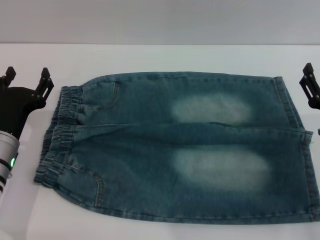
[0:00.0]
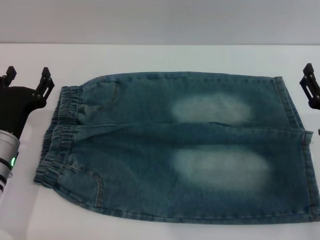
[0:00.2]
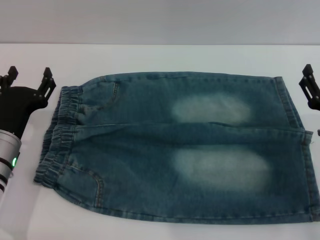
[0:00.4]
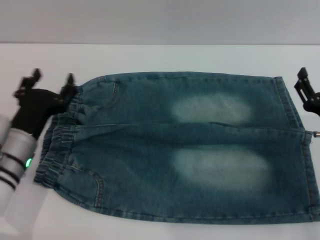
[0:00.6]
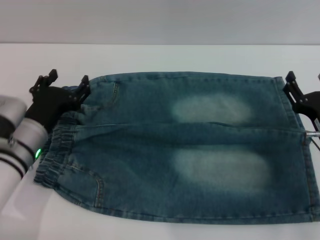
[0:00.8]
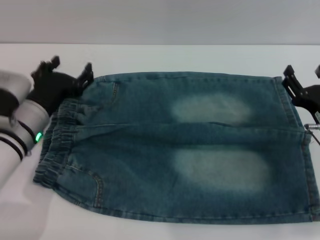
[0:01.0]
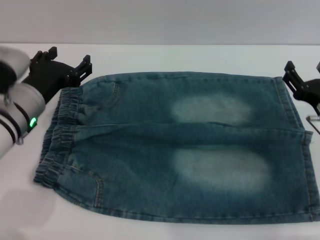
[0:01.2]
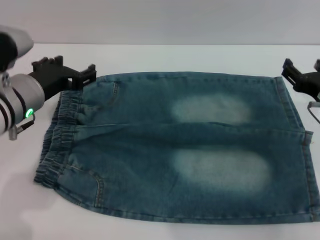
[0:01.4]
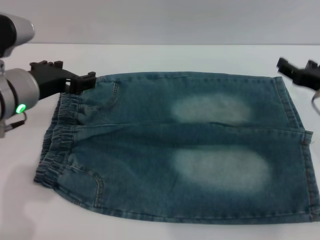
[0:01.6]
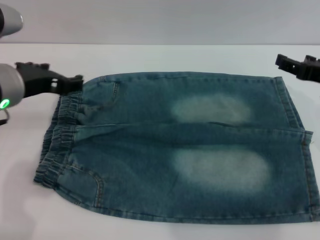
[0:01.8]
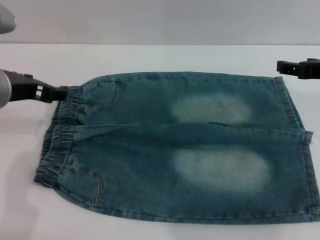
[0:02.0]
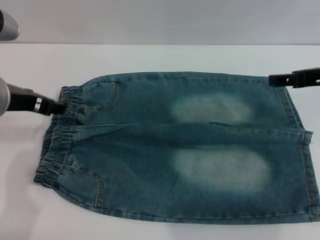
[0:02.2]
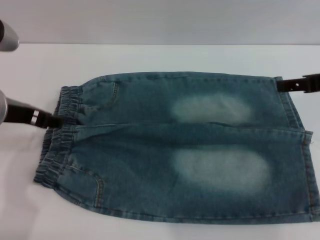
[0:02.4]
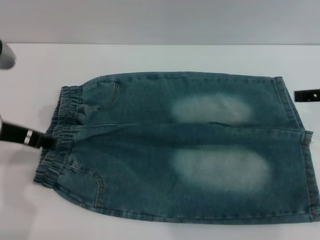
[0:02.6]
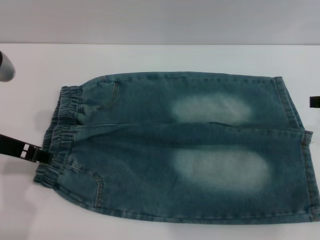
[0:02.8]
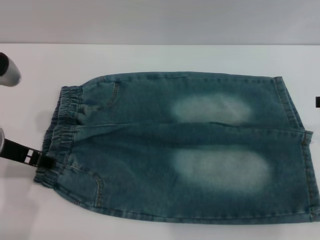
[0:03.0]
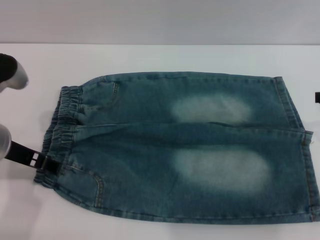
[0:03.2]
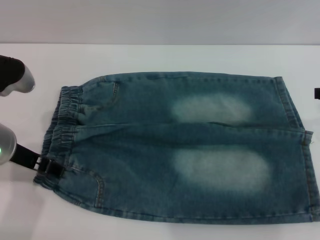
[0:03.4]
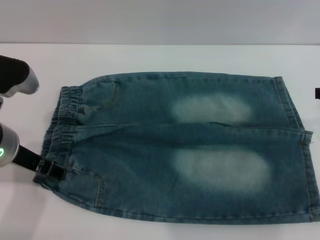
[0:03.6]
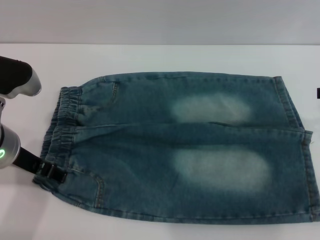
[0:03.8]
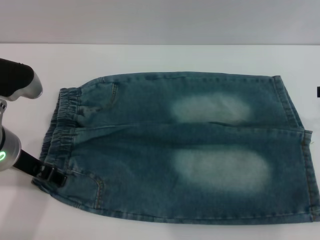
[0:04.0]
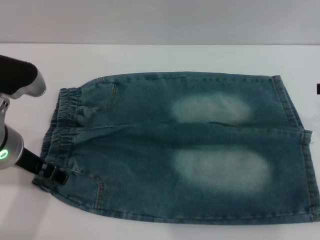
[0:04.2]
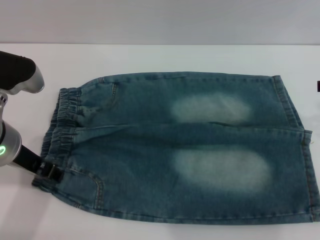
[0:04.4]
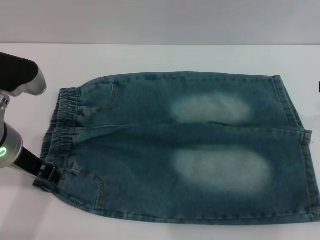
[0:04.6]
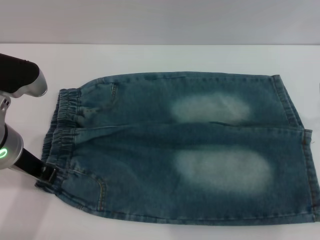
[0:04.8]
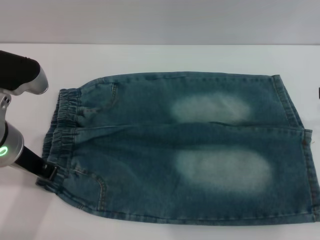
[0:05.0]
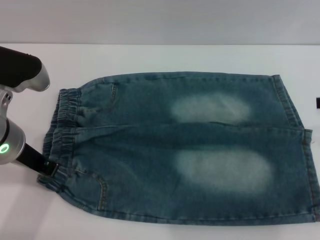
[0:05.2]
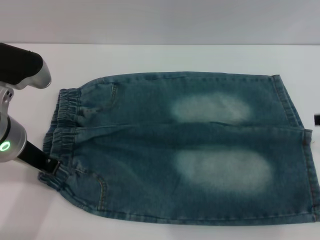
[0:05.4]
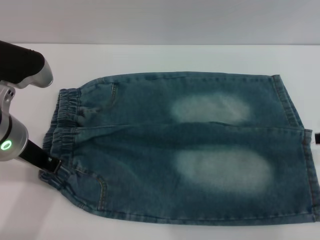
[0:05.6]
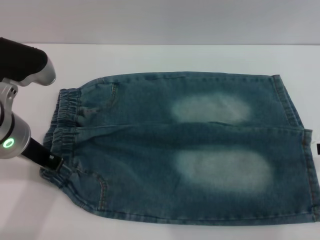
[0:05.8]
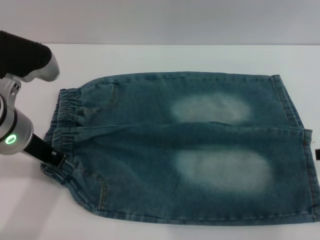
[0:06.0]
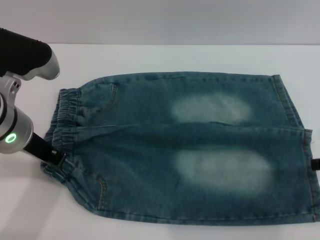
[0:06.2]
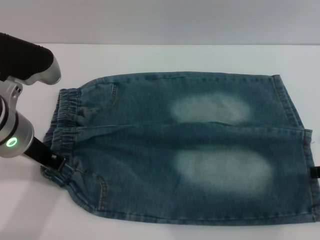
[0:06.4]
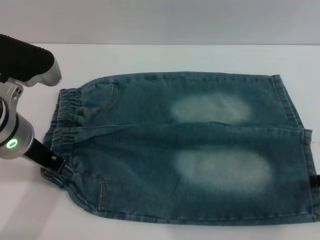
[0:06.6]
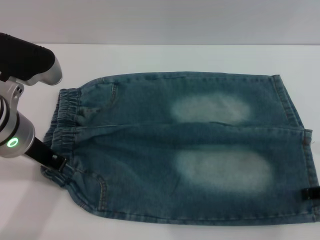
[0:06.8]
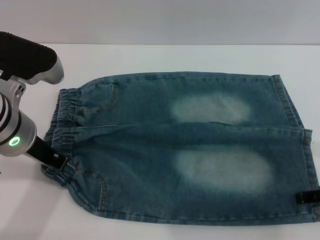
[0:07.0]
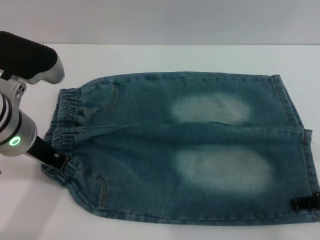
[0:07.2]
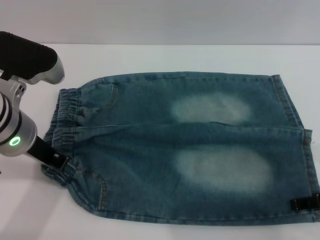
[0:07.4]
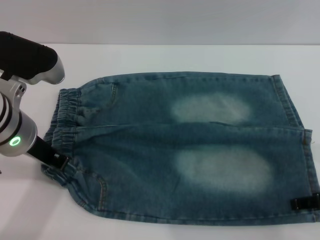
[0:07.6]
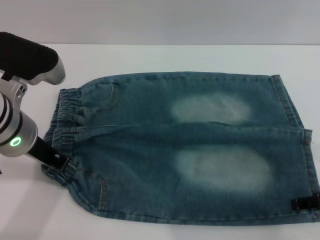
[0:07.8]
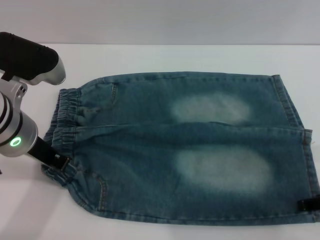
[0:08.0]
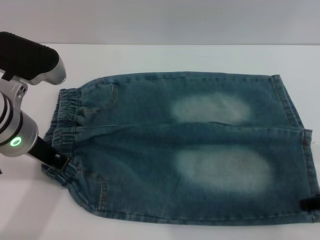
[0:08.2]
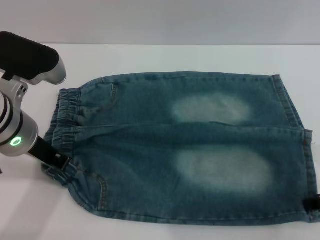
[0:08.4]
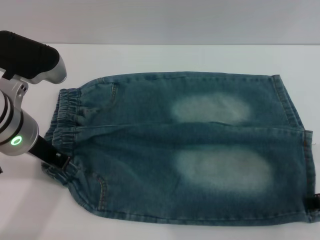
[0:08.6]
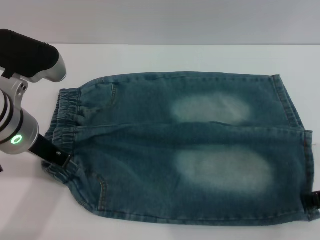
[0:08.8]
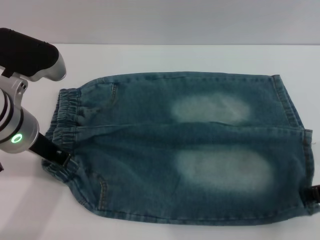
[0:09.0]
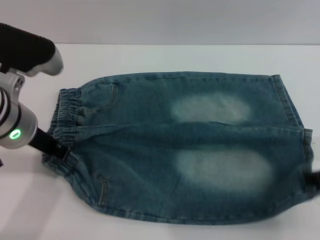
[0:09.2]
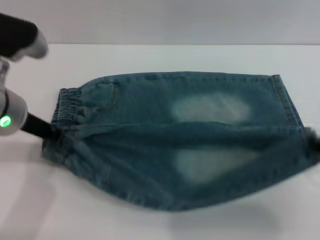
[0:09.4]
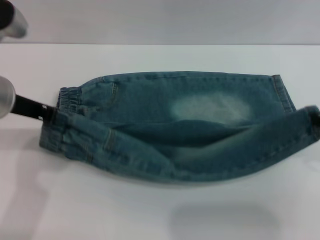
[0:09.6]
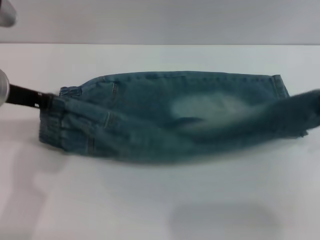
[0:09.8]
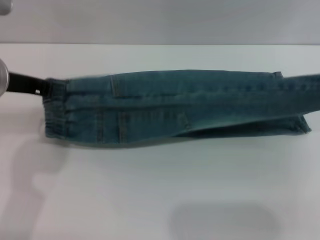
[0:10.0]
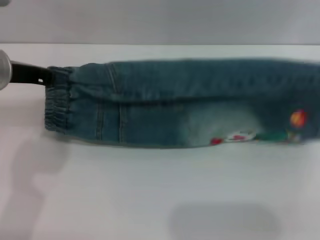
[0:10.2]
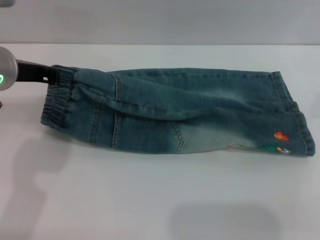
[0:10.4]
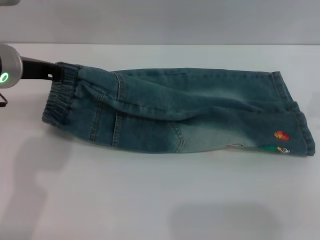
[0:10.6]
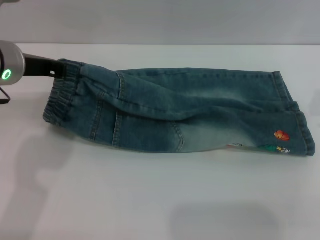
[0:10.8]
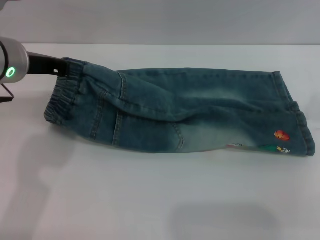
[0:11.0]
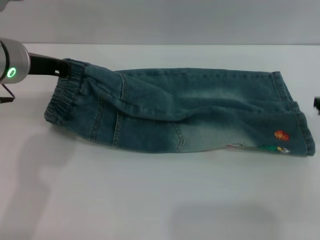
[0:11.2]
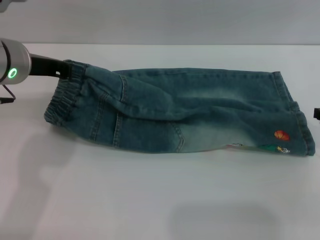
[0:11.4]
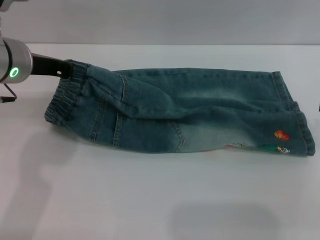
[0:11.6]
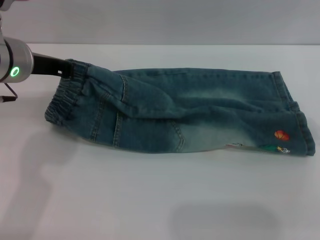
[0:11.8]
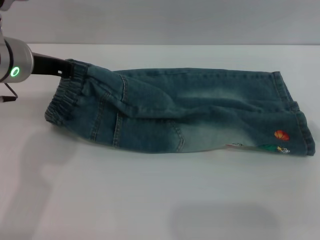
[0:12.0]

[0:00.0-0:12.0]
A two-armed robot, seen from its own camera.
0:00.0 to 0:01.6: Both grippers travel together upward, about 10 cm.
0:01.6 to 0:03.0: The right gripper is displaced upward by approximately 10 cm.
0:03.0 to 0:04.4: There are only small adjustments of the grippers.
0:04.4 to 0:06.0: The left gripper closes up. The right gripper moves approximately 5 cm.
0:07.6 to 0:09.0: The right gripper closes up.
0:09.0 to 0:10.4: The left gripper ends up some 5 cm from where it was. Meanwhile the right gripper shifts about 10 cm forward and upward.
0:10.4 to 0:12.0: The right gripper opens.

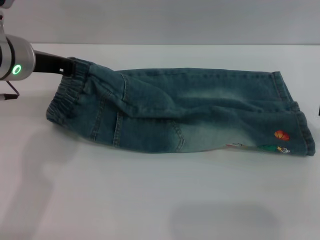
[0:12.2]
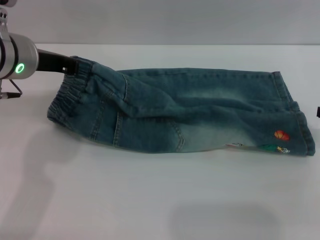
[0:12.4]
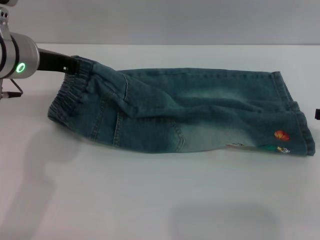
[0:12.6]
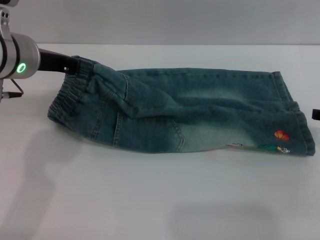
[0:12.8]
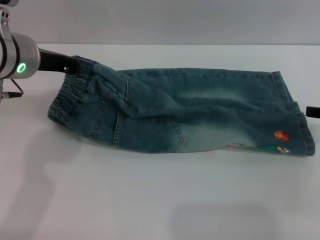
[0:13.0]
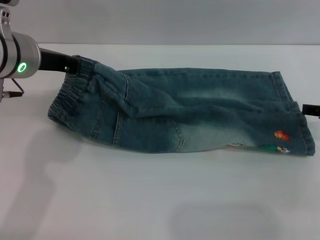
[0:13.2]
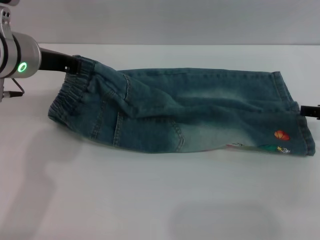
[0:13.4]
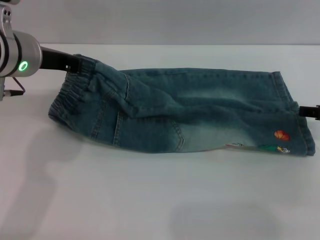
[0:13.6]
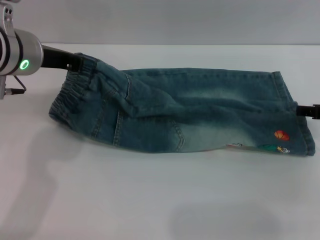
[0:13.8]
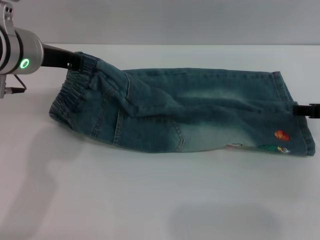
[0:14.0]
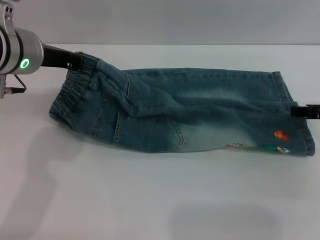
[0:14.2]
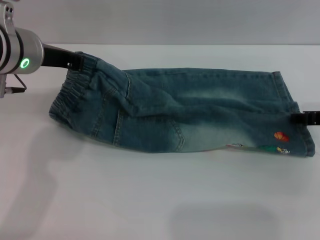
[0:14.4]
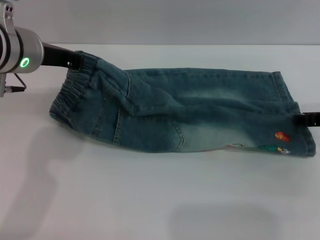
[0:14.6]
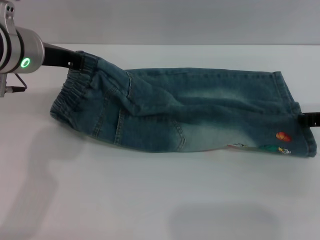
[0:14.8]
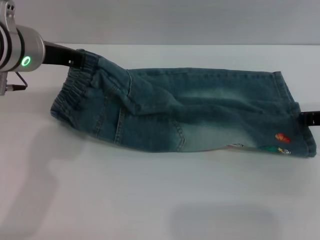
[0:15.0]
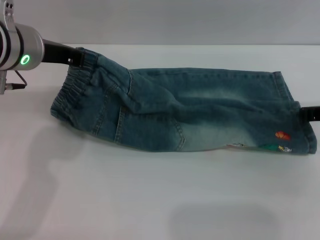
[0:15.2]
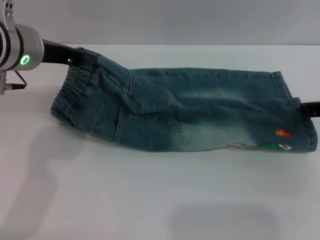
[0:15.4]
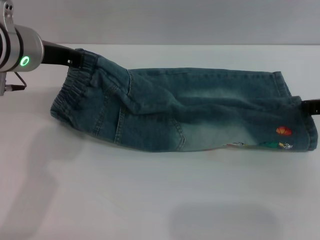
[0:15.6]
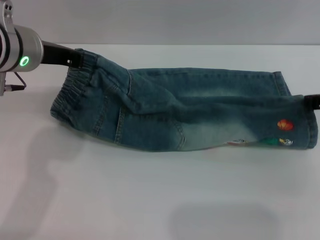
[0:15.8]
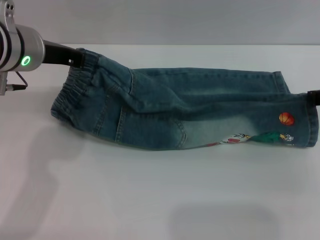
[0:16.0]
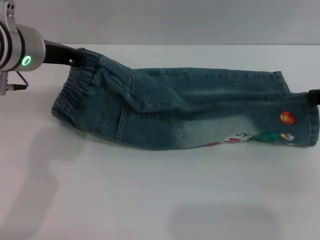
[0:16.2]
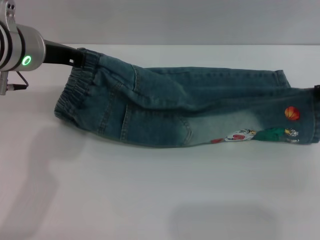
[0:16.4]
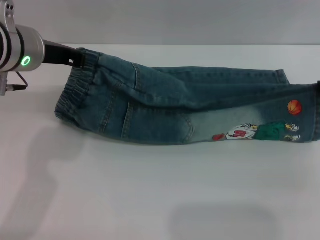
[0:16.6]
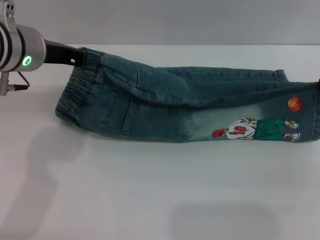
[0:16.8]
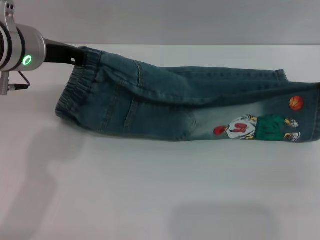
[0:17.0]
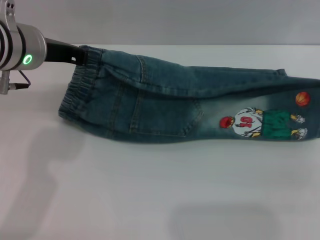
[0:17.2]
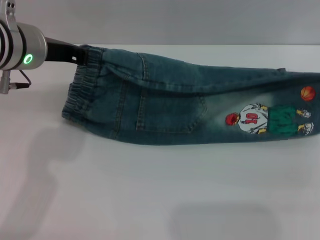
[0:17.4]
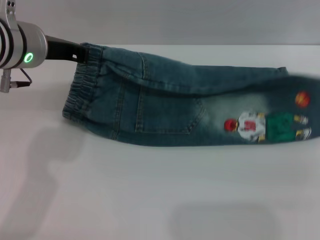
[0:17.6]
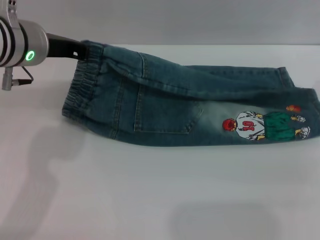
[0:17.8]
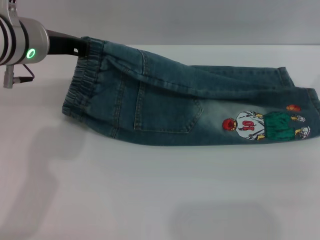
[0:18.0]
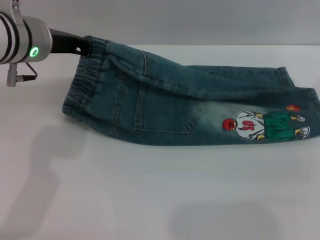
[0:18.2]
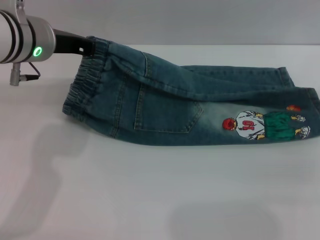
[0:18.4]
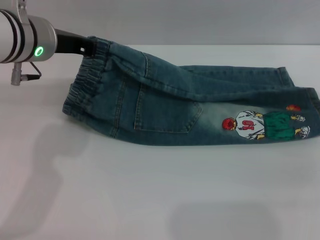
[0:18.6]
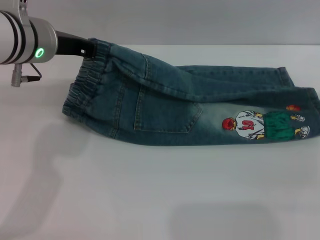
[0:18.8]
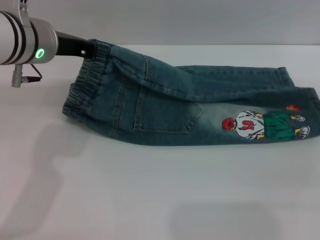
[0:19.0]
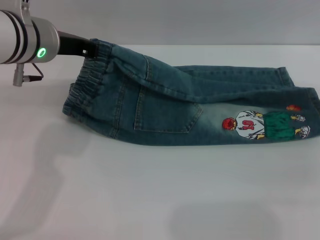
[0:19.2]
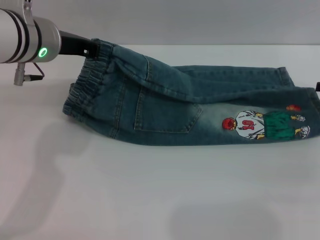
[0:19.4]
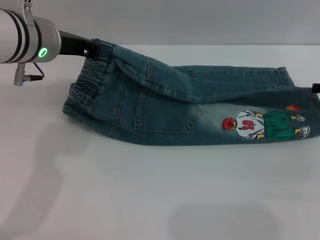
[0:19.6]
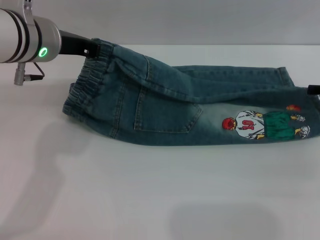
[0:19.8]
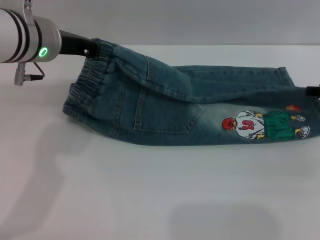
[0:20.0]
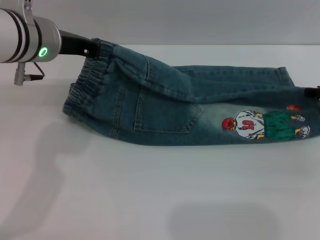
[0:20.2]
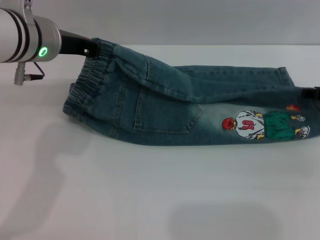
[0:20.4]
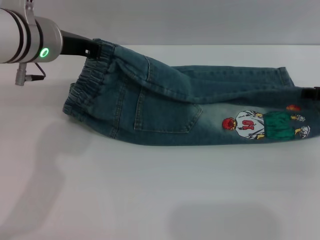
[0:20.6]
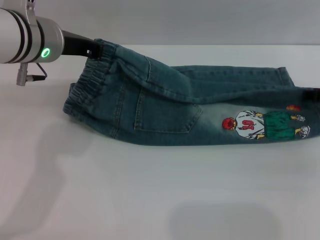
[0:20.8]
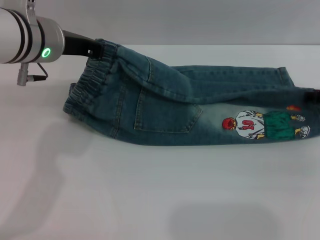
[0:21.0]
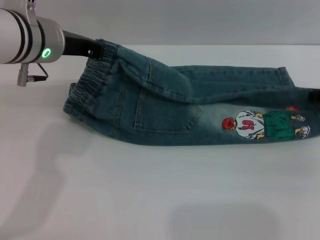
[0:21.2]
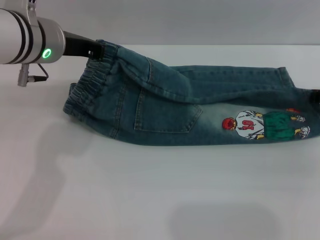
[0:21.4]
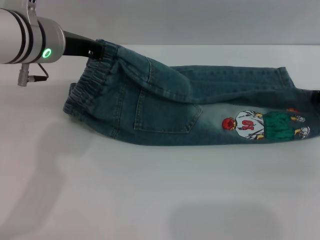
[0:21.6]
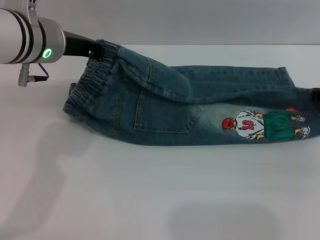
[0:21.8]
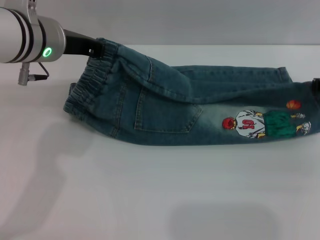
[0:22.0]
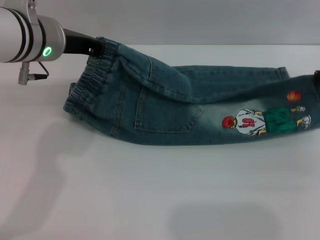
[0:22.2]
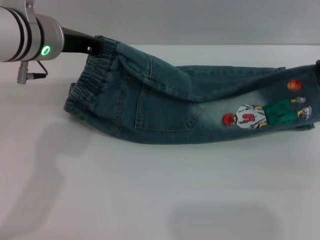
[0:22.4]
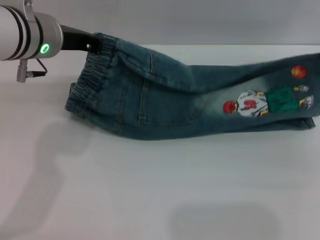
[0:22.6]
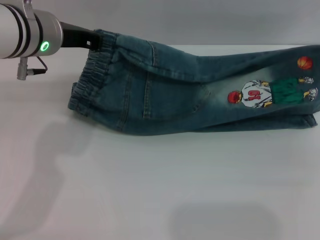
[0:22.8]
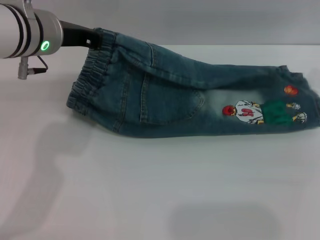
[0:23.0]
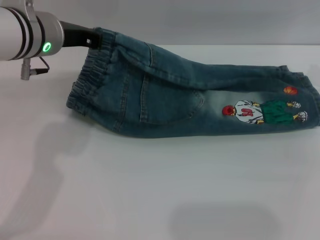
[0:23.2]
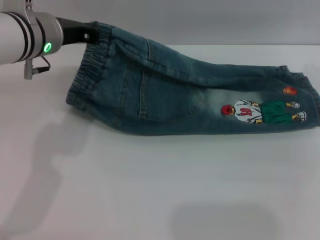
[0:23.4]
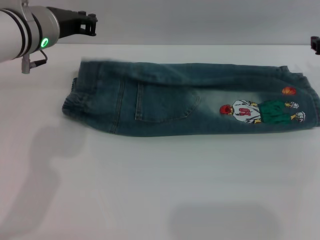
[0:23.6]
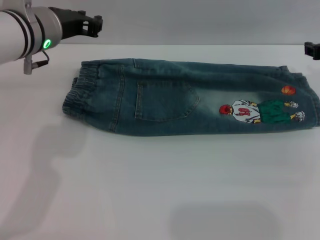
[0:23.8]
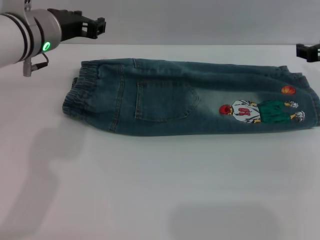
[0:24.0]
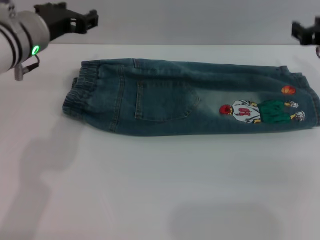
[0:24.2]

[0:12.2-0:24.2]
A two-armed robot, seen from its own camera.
Step, 0:12.2 to 0:23.4: Fold the bottom of the pants upward with both grippers.
0:12.2 to 0:13.8: The grippers move only a little.
0:13.8 to 0:15.2: The right gripper closes.
0:15.2 to 0:16.6: The grippers make only small movements.
0:16.6 to 0:18.2: The grippers stay close to where they were, moving slightly.
0:18.2 to 0:19.8: The right gripper goes roughly 5 cm downward, and opens its fingers.
0:19.8 to 0:21.2: The two grippers keep their place.
0:21.2 to 0:22.6: The right gripper moves upward, approximately 5 cm, and closes up.
0:22.6 to 0:24.2: The left gripper opens. The right gripper opens.
